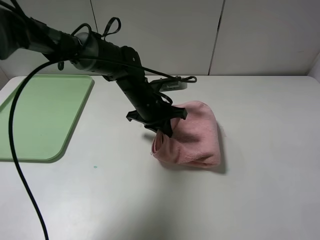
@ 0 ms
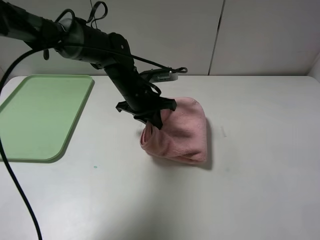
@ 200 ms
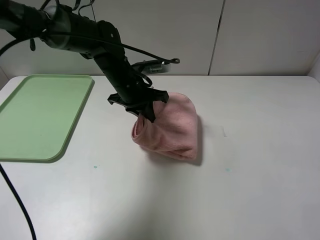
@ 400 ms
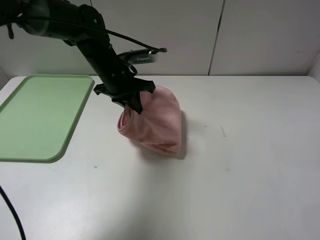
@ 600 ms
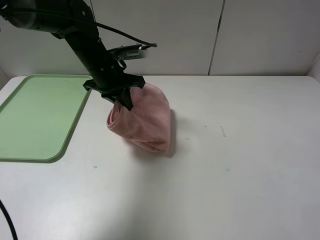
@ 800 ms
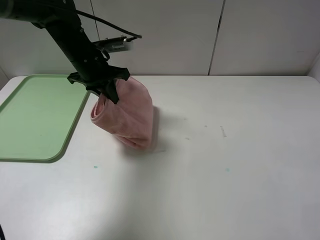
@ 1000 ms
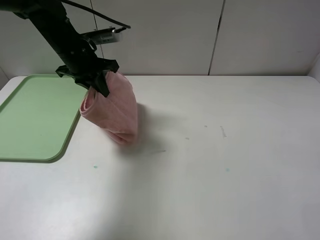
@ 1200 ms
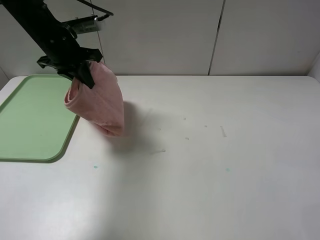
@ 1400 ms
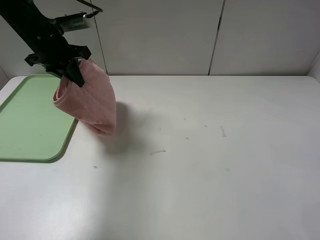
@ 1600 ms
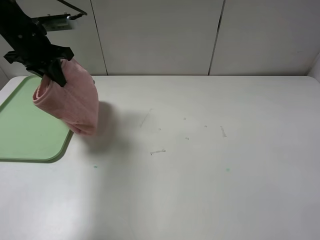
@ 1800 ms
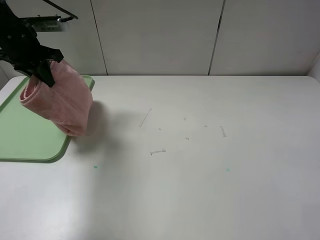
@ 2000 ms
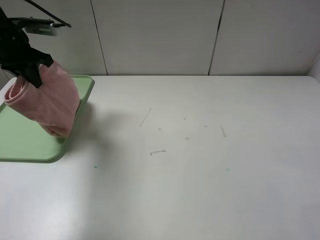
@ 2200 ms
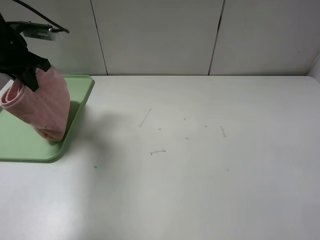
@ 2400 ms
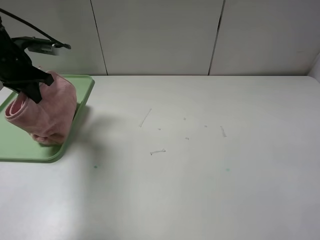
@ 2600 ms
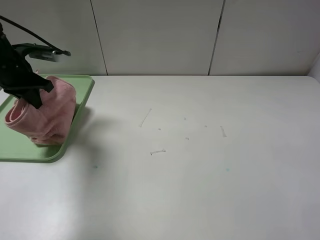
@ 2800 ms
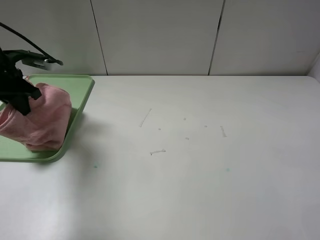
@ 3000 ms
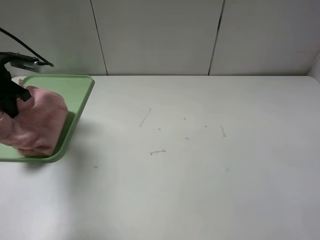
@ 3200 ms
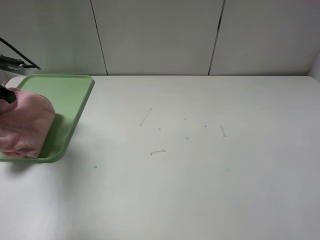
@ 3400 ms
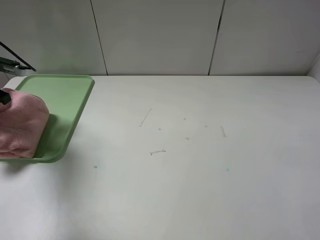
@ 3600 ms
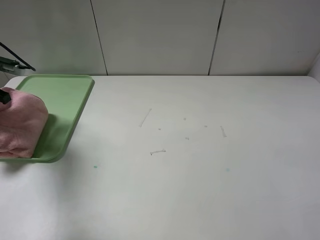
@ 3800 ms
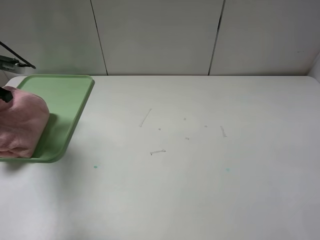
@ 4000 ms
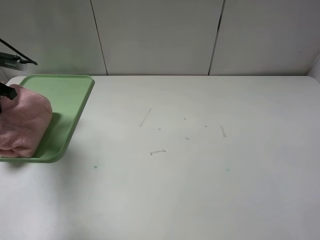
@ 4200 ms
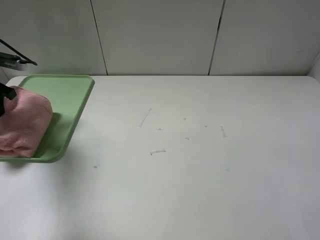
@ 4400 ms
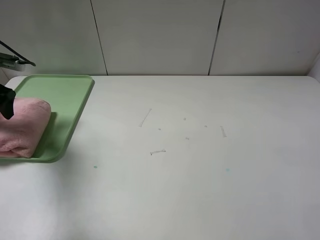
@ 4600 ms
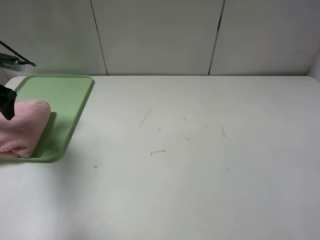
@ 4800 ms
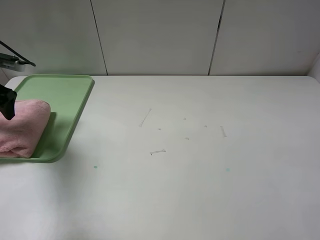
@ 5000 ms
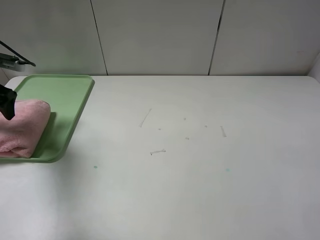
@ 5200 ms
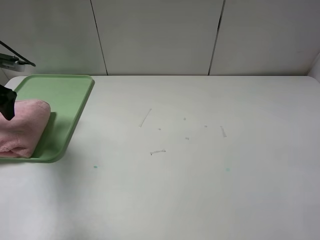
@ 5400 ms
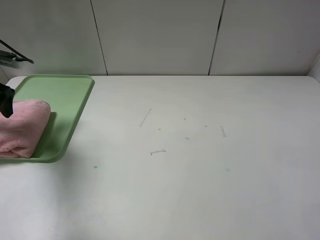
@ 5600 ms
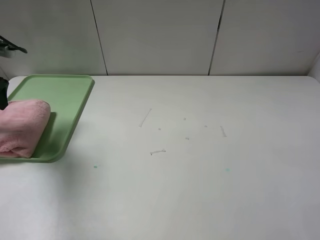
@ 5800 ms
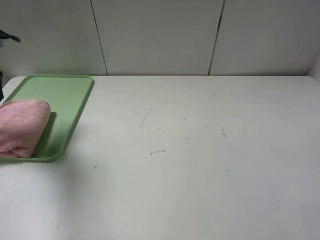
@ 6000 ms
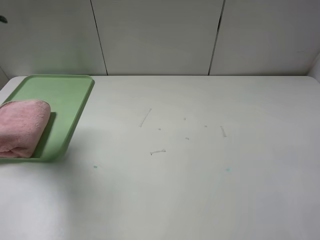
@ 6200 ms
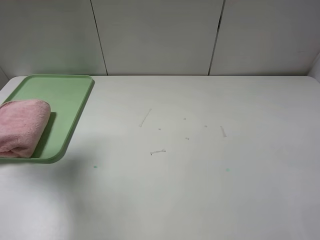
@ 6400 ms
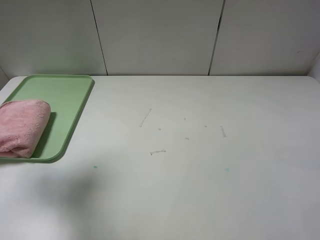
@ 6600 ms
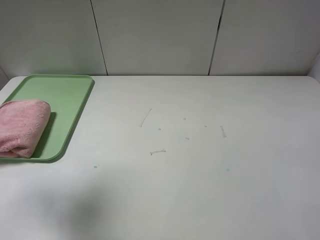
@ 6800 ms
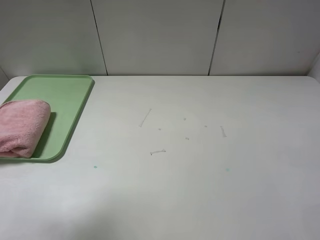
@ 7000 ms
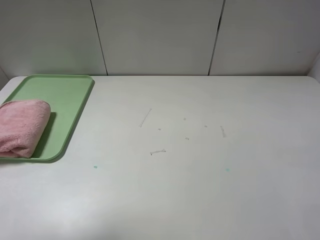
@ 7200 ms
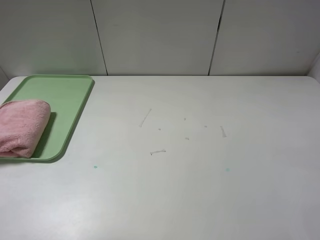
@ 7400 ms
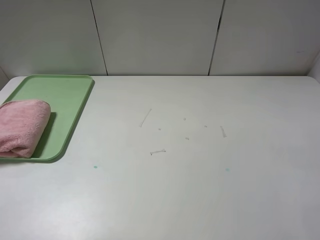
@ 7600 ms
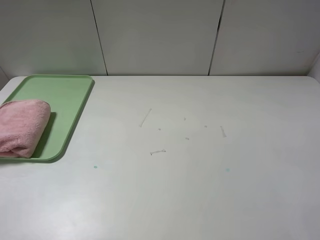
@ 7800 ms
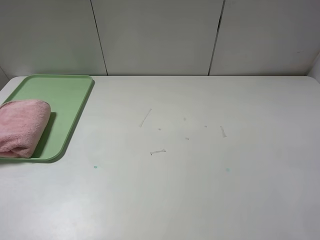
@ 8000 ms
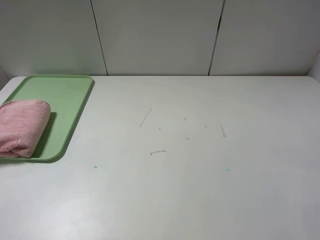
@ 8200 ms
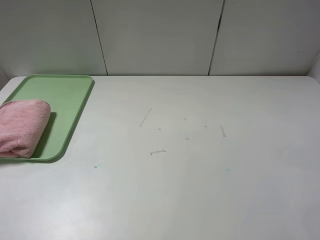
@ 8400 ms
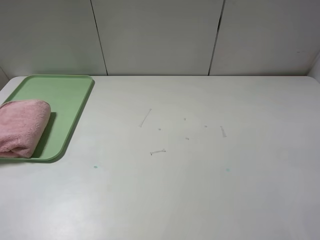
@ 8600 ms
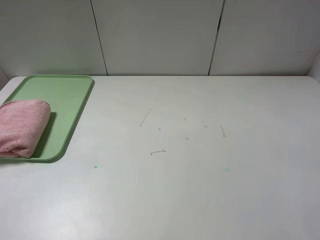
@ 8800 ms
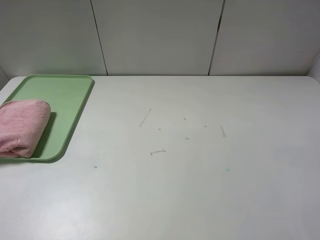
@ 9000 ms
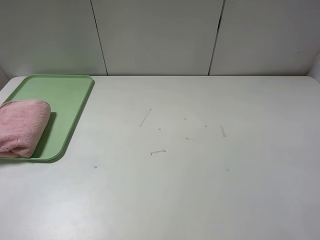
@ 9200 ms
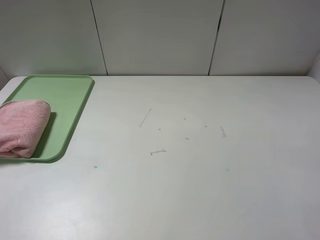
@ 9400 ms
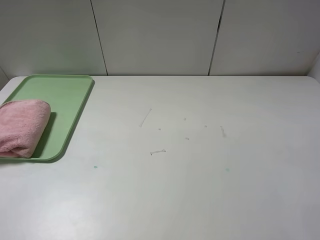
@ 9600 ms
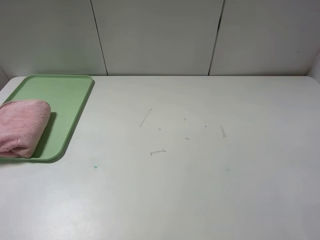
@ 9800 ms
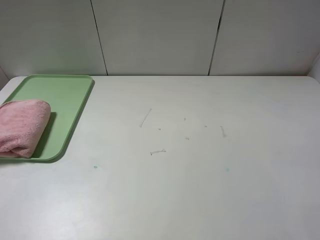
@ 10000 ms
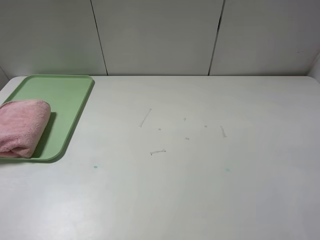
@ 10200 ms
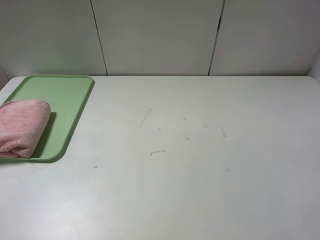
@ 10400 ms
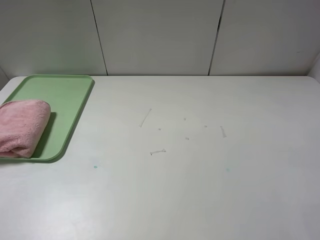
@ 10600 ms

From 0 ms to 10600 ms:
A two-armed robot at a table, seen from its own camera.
Step, from 0 ms to 5200 ms: Place the folded pink towel on the tray with the left gripper.
From 0 ms to 1600 ms: The left gripper heads to the left and upward, covering some 25 cm.
From 1600 ms to 3000 ms: The left gripper shifts some 10 cm to the left and downward.
From 3000 ms to 4600 ms: The left gripper shifts some 5 cm to the left, and opens its fingers.
From 4600 ms to 6000 ms: The left gripper shifts roughly 5 cm upward.
From 6000 ms to 7600 ms: The left gripper moves backward, approximately 30 cm.
